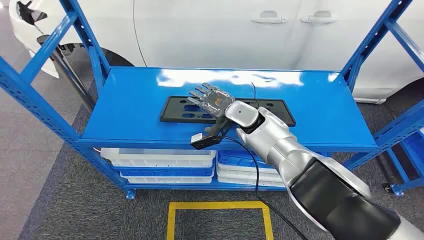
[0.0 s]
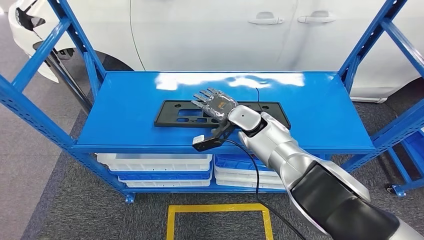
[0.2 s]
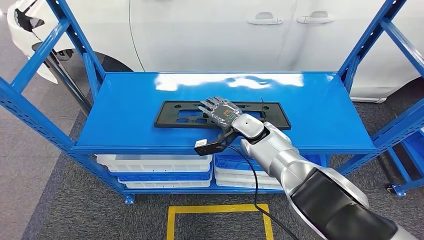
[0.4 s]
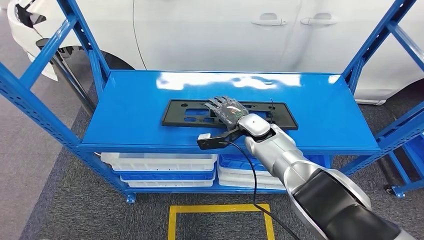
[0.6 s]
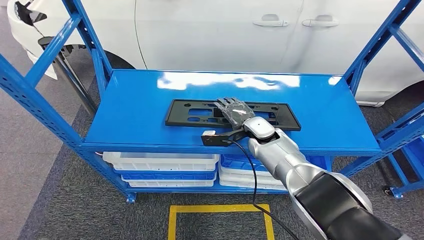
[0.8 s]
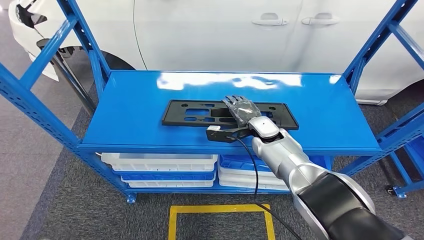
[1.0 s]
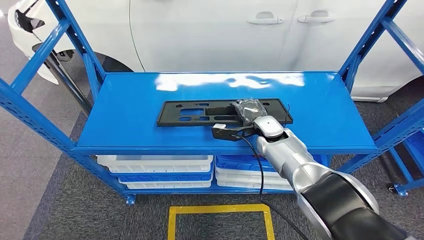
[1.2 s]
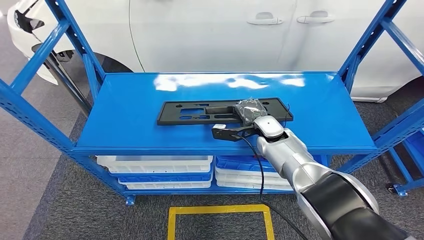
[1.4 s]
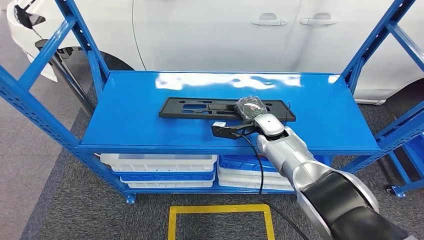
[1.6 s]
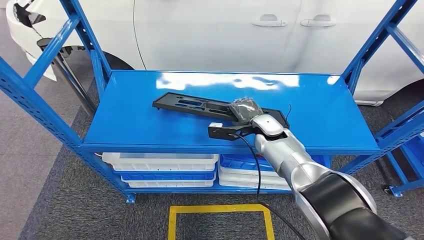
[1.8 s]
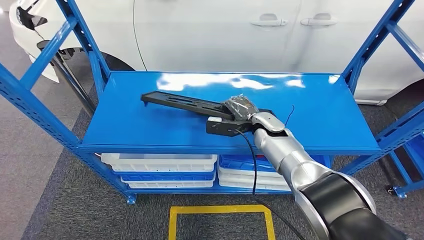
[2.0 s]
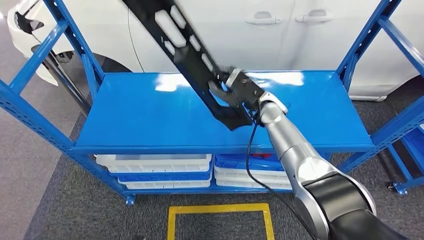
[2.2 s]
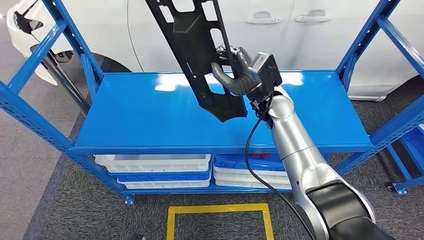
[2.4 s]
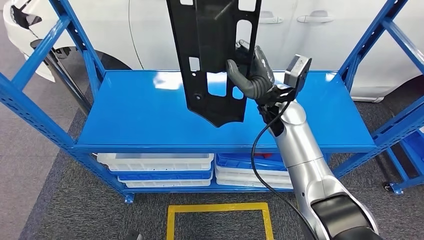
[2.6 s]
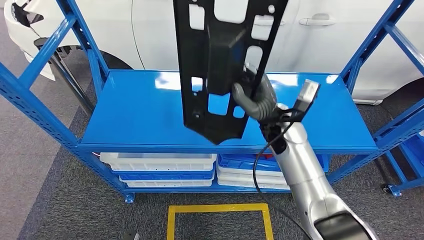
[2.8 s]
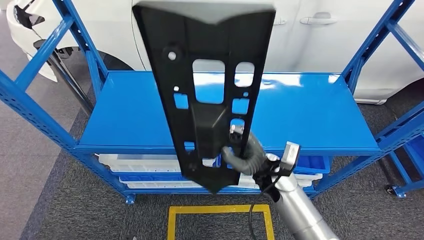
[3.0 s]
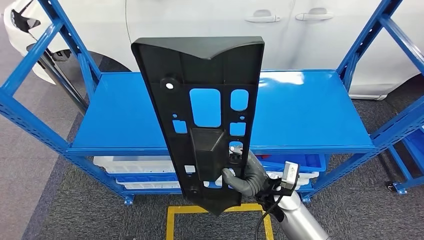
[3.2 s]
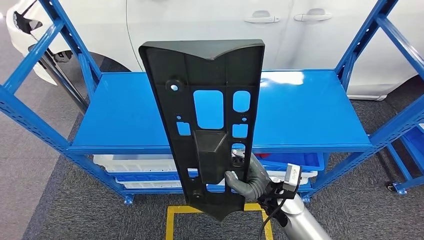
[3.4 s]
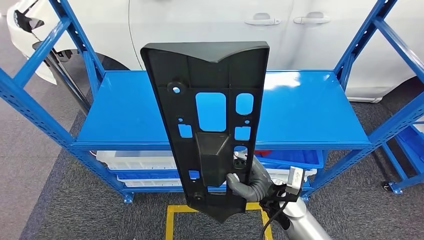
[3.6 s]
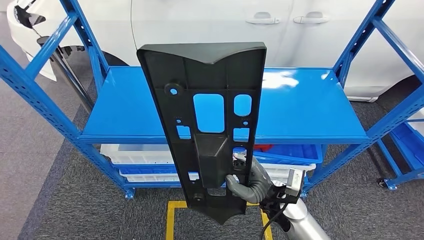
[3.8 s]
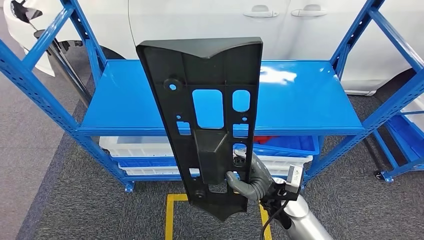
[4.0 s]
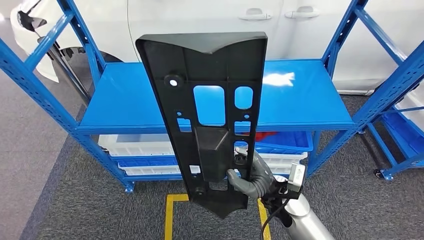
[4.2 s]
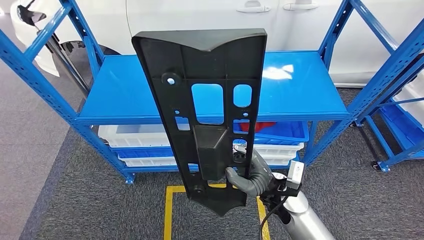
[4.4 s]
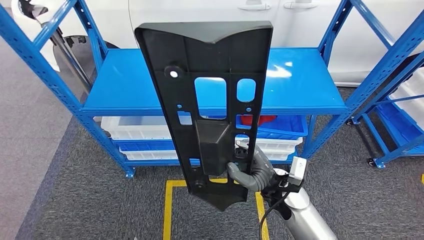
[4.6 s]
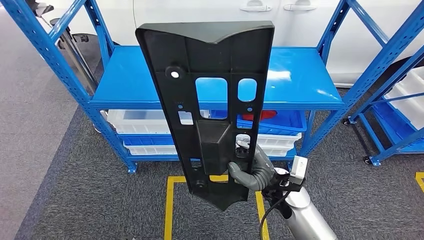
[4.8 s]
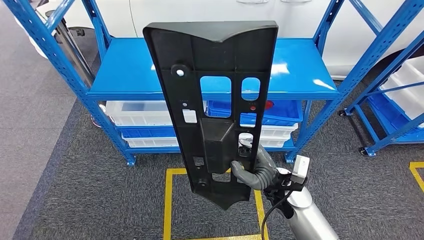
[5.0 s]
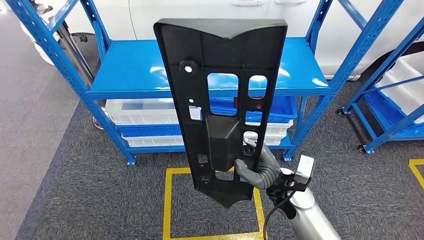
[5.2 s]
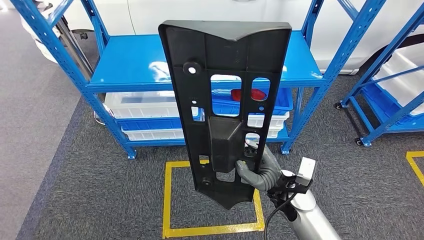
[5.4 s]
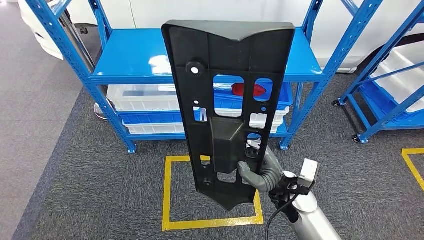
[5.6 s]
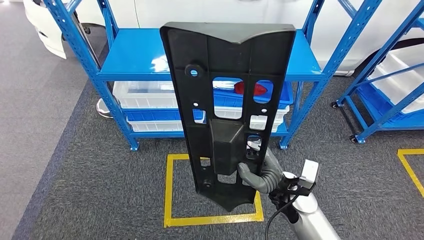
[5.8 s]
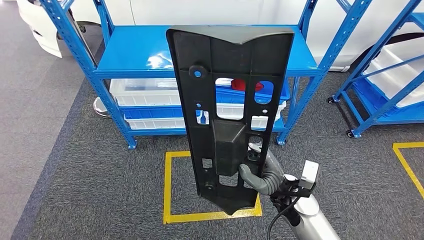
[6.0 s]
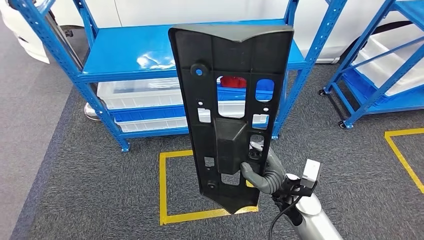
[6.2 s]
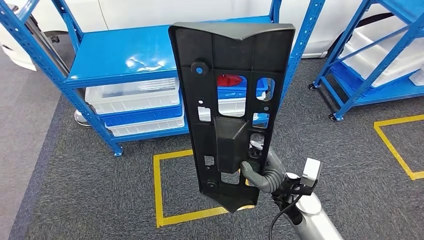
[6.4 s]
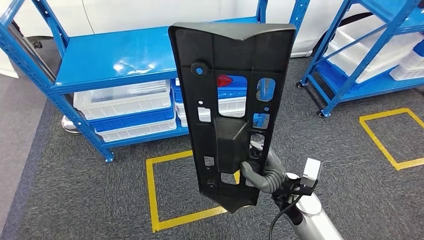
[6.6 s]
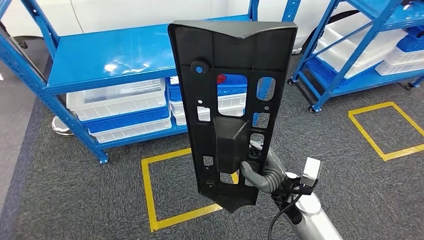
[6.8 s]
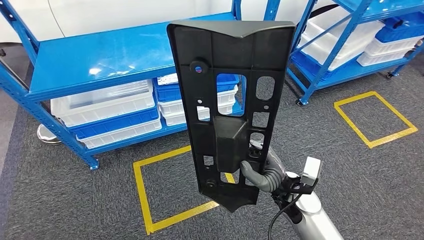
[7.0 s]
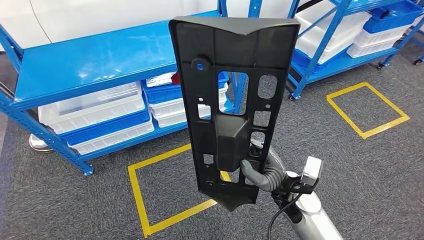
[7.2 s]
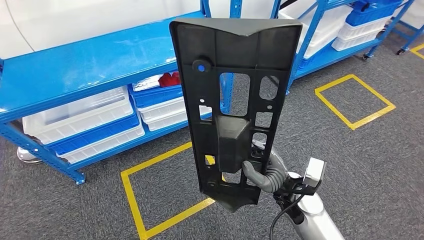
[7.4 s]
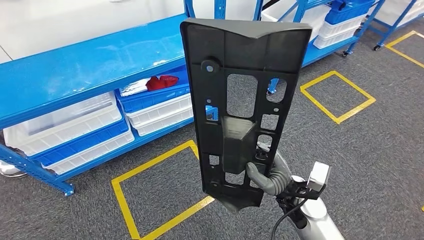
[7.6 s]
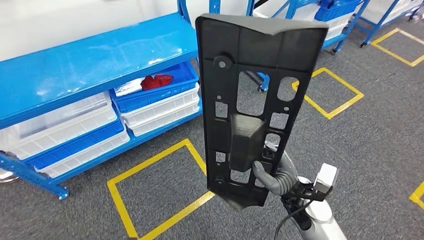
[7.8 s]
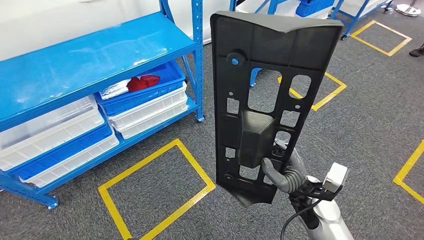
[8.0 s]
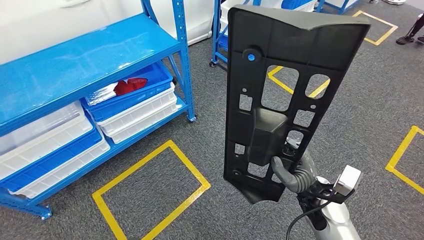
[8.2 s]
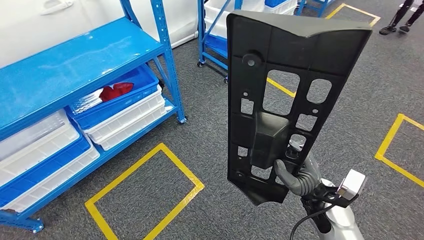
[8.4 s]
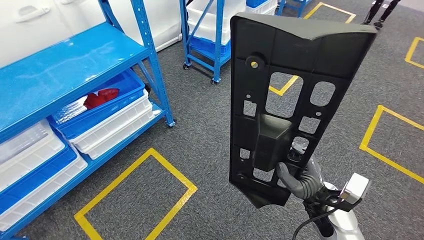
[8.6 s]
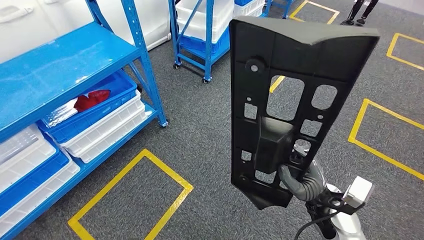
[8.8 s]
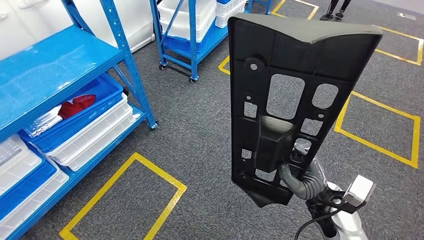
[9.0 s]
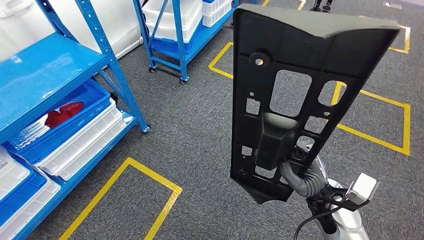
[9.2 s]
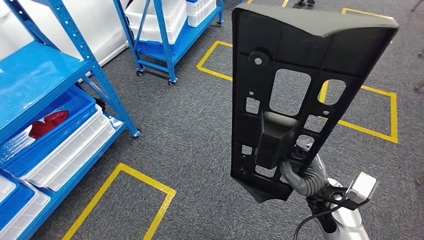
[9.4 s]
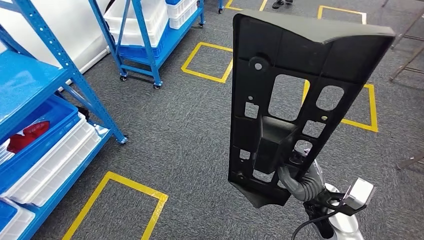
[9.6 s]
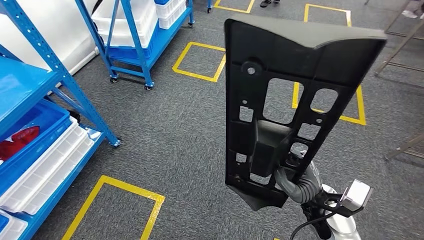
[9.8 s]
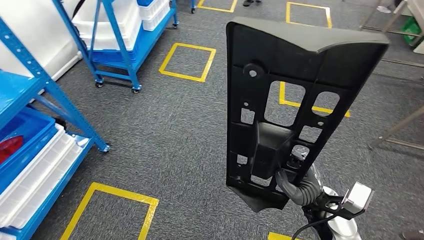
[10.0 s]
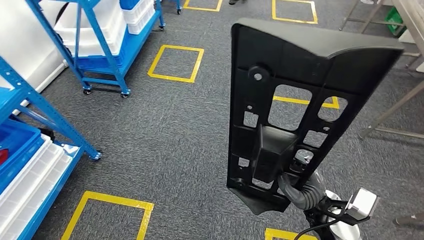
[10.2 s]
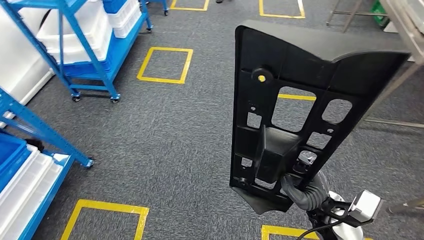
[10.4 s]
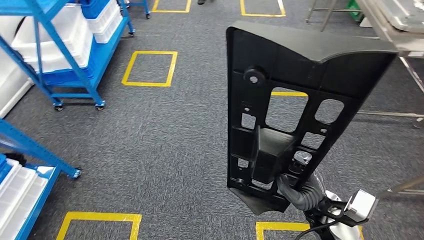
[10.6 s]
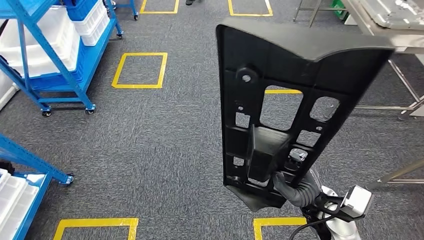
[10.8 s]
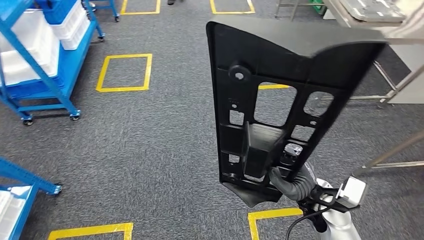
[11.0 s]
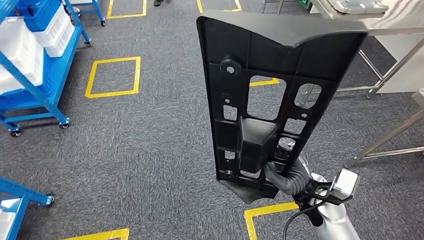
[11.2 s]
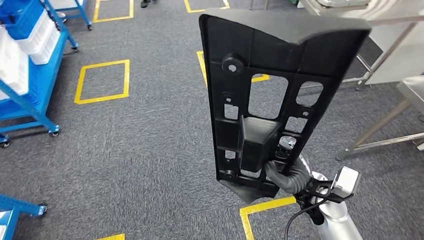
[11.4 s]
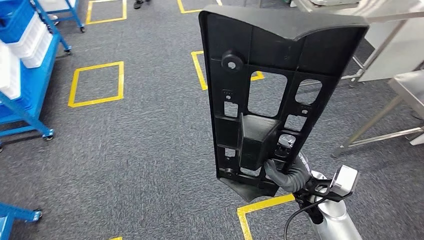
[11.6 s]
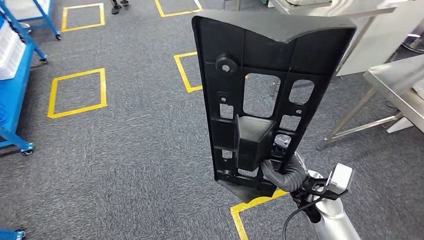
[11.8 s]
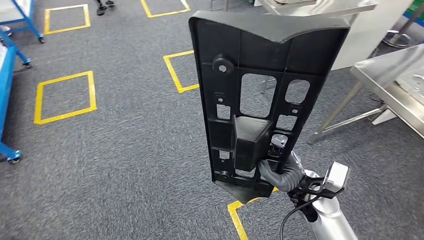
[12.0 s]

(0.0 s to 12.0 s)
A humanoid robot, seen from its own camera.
Step, 0.0 s - 2.8 s: Pick up the large material from the shelf.

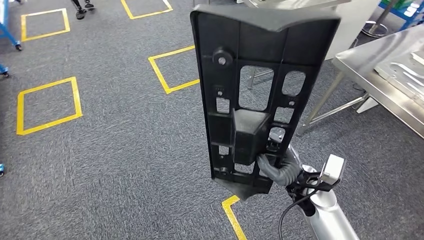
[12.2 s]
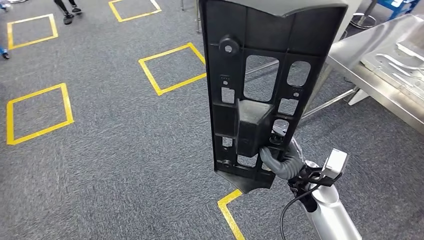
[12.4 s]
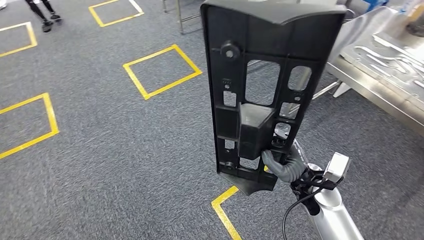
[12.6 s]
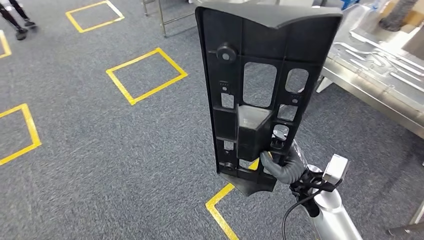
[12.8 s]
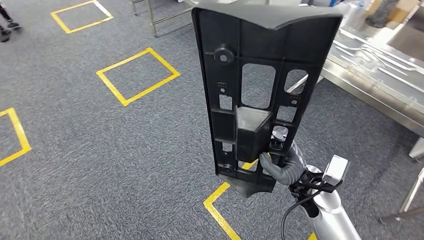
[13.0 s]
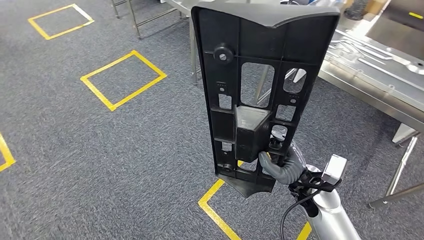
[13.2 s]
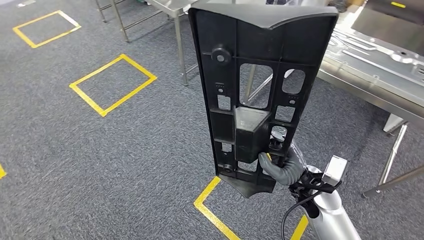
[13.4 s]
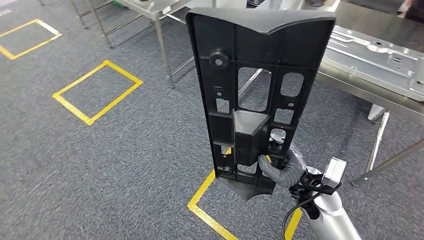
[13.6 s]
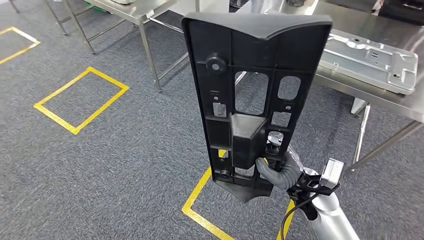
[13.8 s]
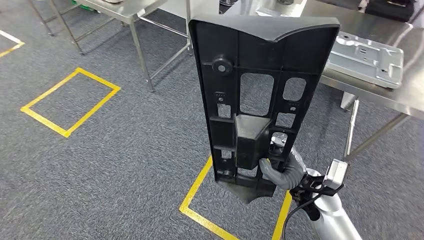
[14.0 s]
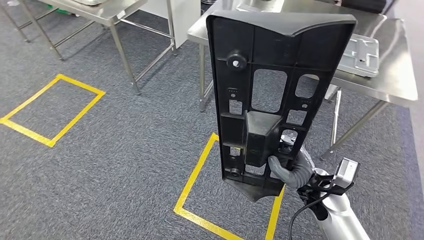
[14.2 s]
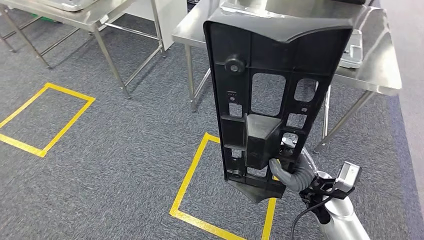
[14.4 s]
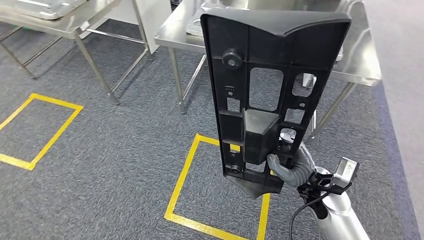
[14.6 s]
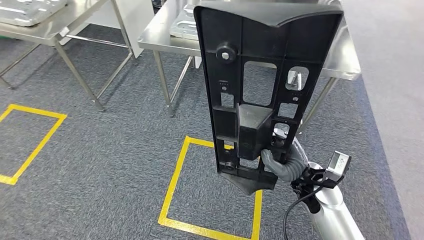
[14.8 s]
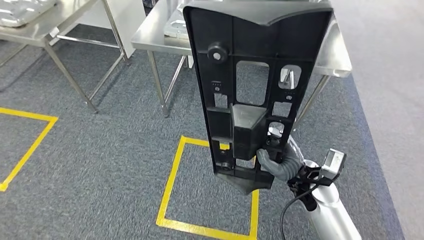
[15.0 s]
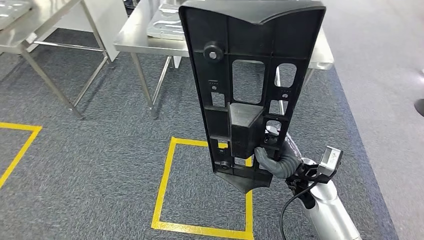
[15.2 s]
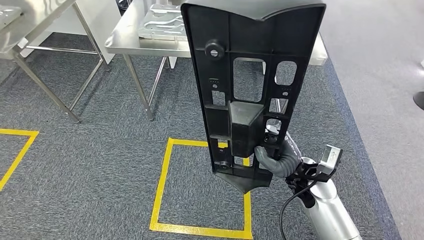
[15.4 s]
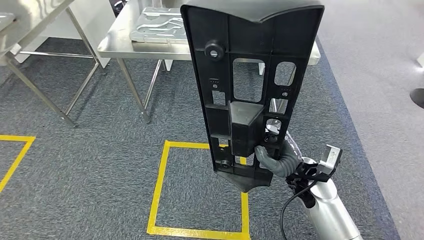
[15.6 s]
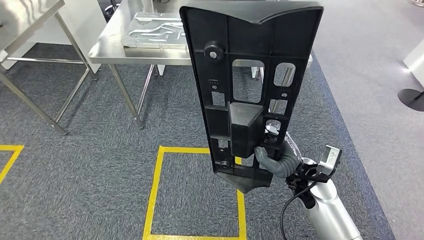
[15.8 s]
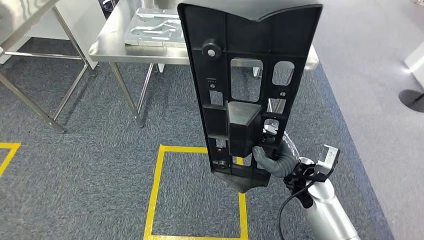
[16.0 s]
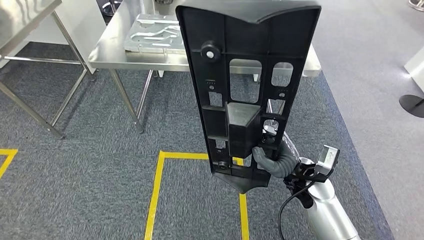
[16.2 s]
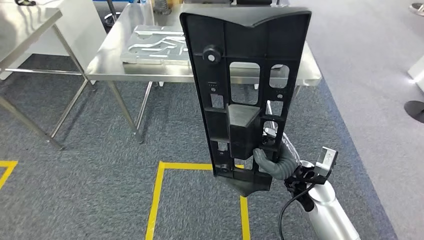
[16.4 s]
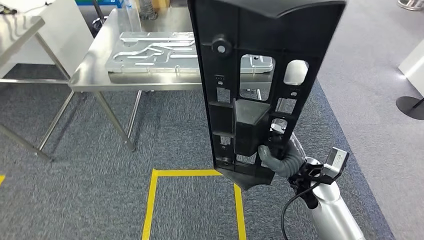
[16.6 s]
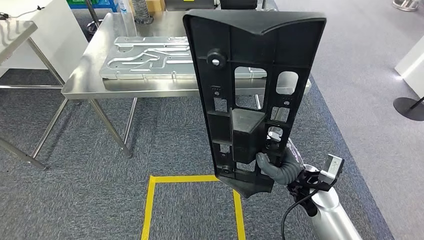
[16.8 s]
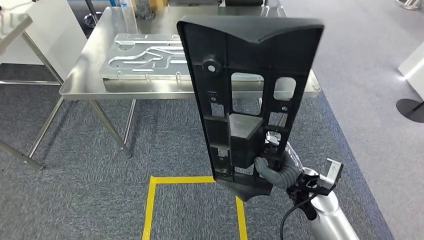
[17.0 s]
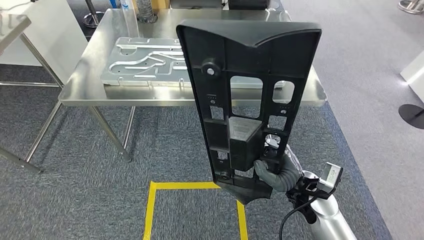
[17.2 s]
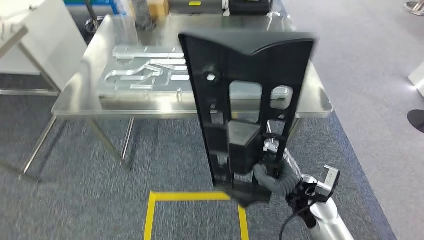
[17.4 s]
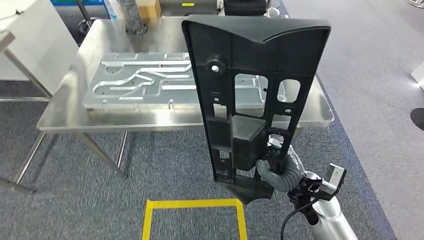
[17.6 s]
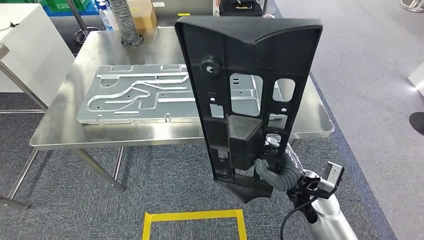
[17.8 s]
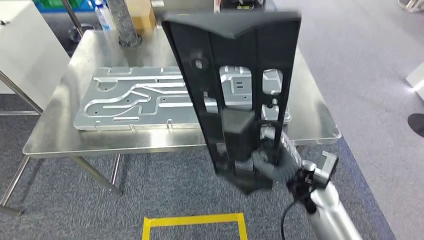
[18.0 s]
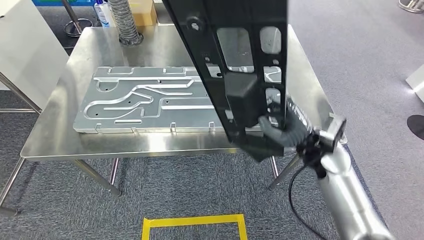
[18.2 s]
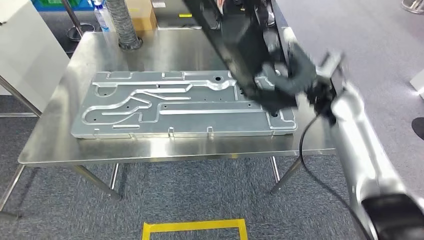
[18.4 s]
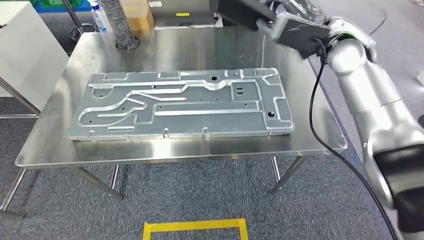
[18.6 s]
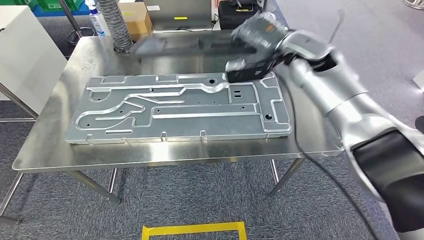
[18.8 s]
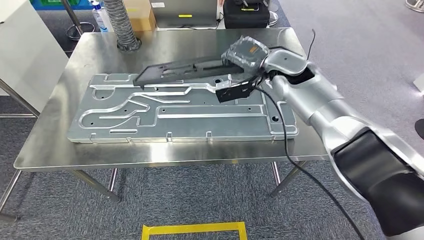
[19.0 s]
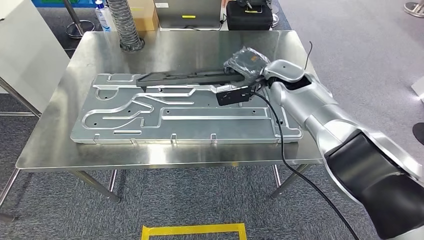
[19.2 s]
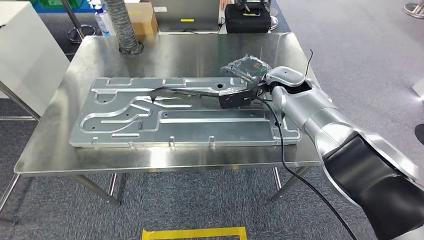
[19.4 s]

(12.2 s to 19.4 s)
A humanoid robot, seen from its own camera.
Step, 12.2 s - 18.0 s: Move the large material to the front of the workbench.
